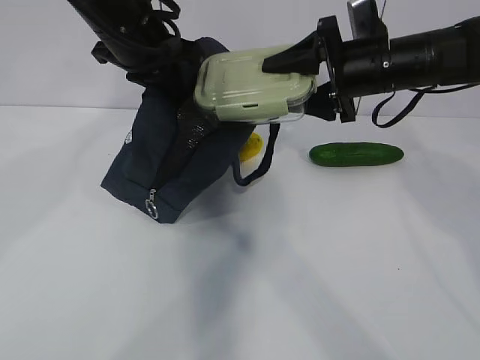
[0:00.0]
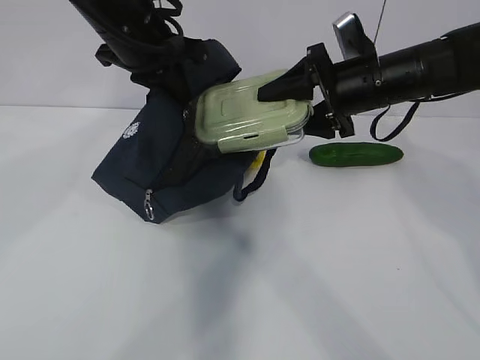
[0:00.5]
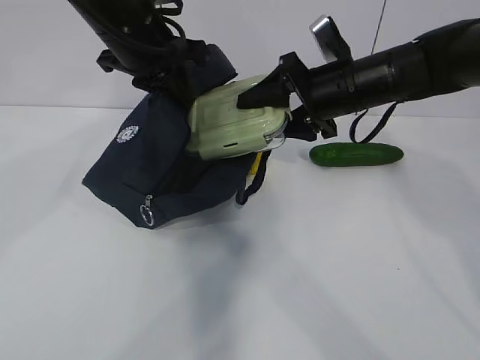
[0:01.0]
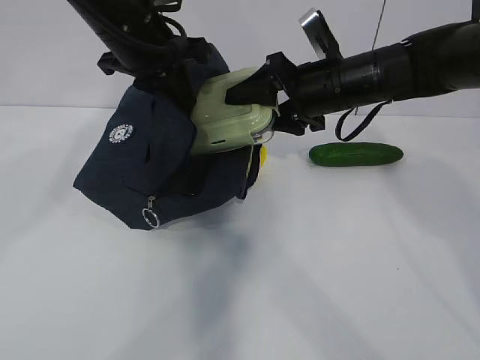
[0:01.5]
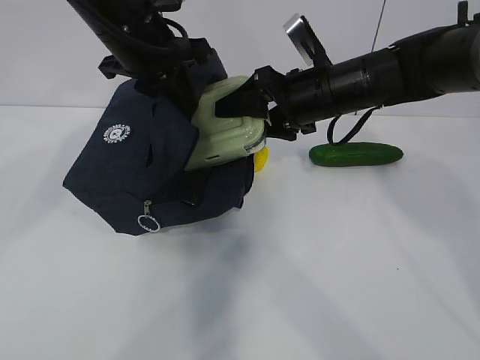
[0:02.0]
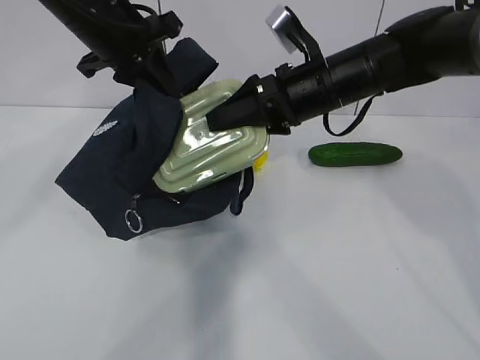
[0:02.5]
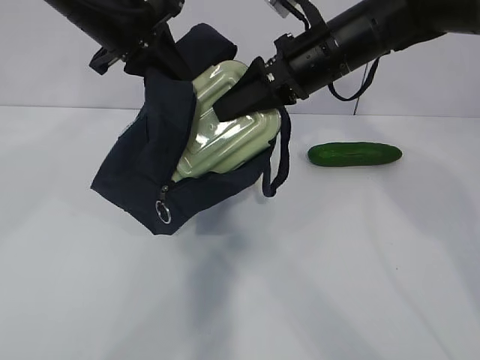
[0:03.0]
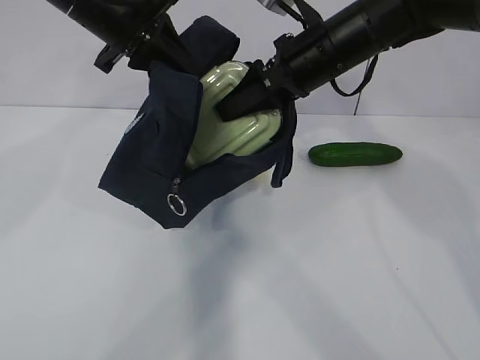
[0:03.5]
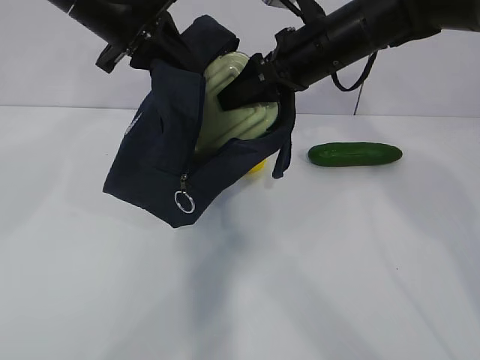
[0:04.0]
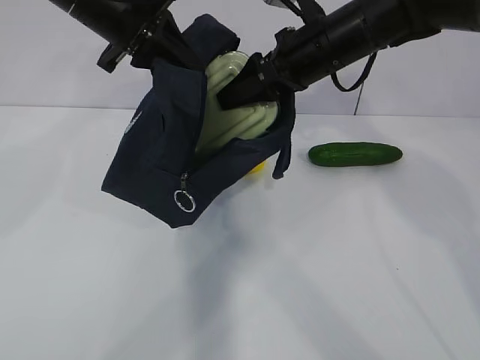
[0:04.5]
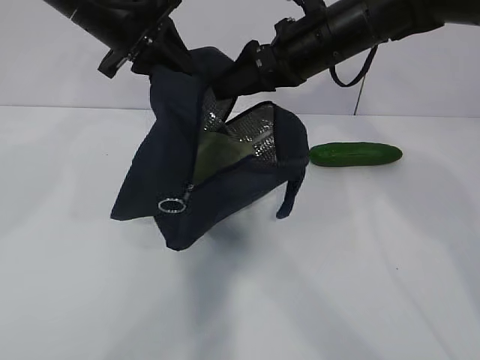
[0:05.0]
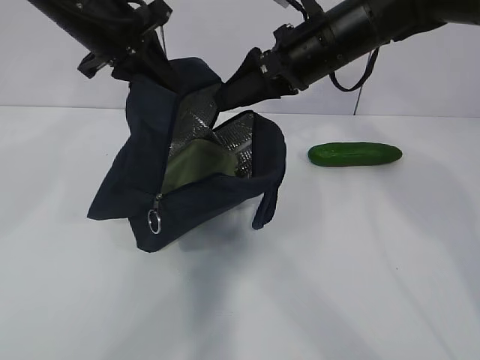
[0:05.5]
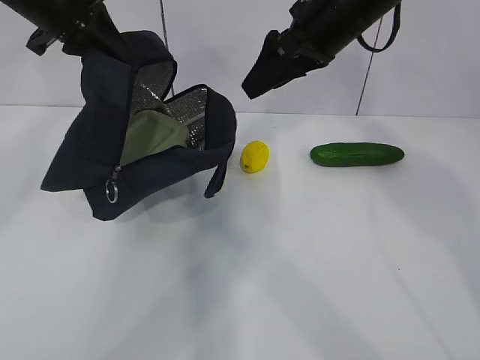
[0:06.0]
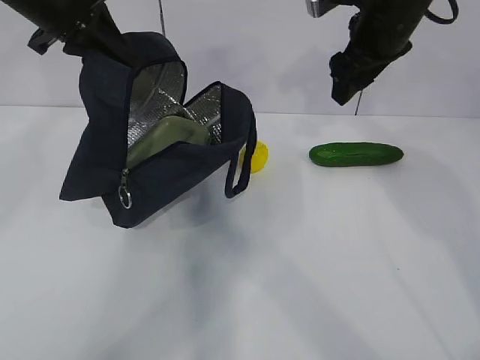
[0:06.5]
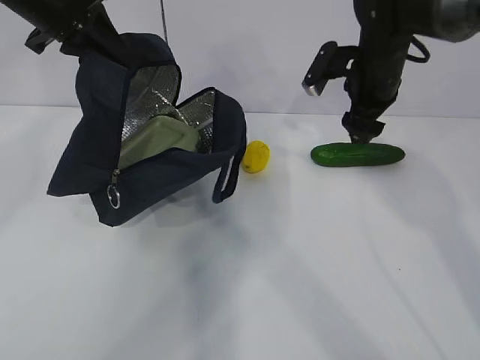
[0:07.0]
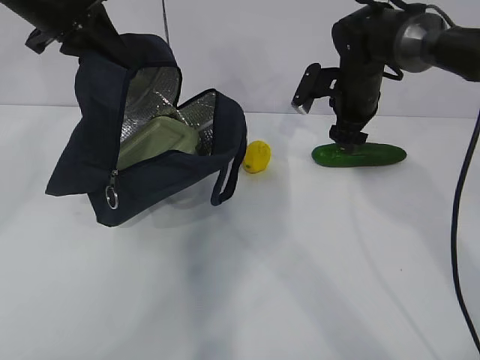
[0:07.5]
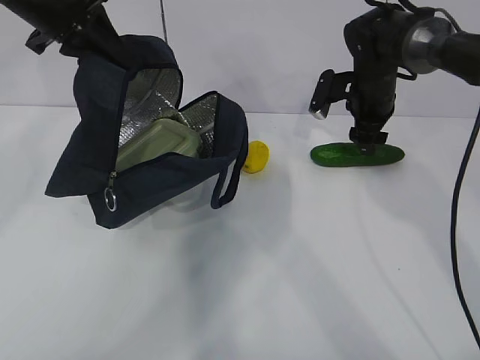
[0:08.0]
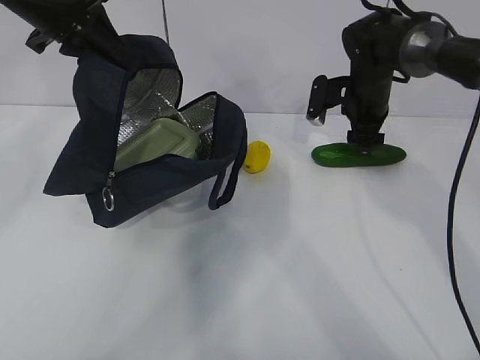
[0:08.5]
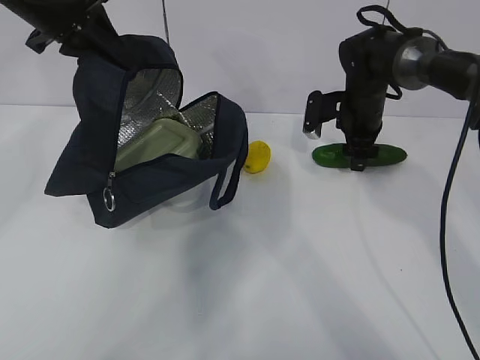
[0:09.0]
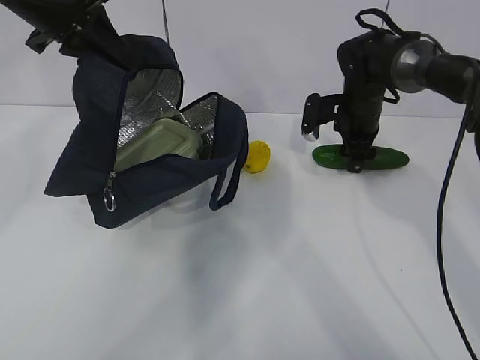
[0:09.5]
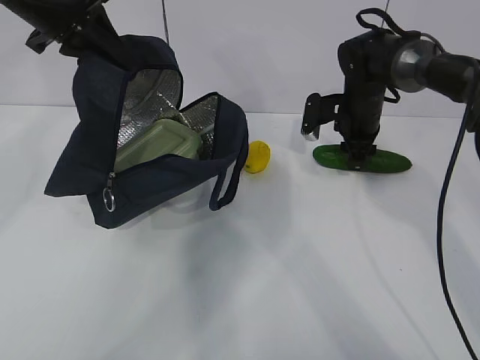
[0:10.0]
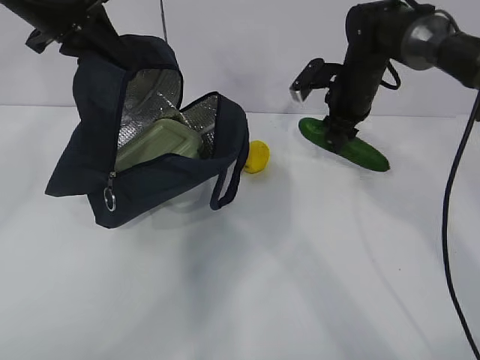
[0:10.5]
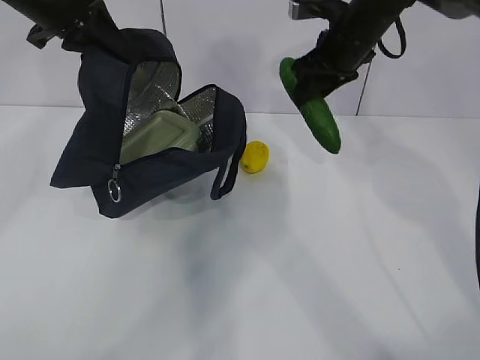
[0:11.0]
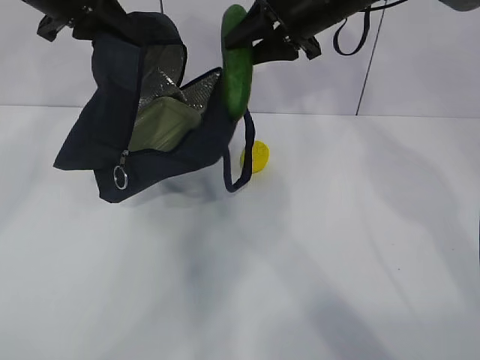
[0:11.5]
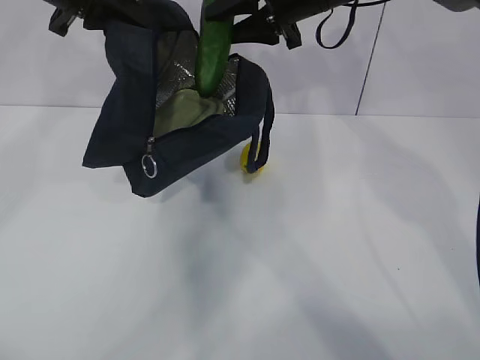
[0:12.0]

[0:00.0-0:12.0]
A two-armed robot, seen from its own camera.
Step, 0:00.0 to 0:03.0: Grab the cucumber with your right hand.
Step, 0:03.5 to 0:07.0: Place it into the bag with your right hand.
Step, 0:07.5 to 0:11.5: Grab the lemon with your right hand.
0:00.0 to 0:02.0: The right gripper travels to the left by roughly 5 cm.
0:04.0 to 0:06.0: The left gripper goes roughly 5 cm to the left.
0:06.0 to 0:08.0: The right gripper travels downward, forward and to the right by some 20 cm.
0:08.0 to 0:10.0: The grippers stay close to where they were, moving slightly.
0:10.0 to 0:12.0: The right gripper is displaced upward and to the left by roughly 20 cm.

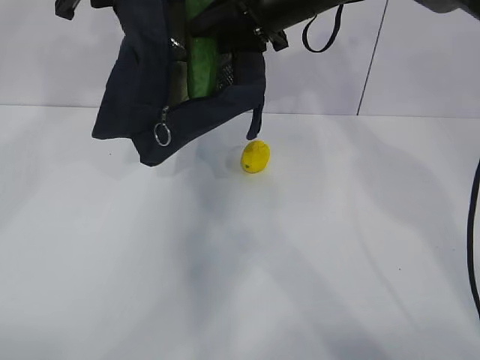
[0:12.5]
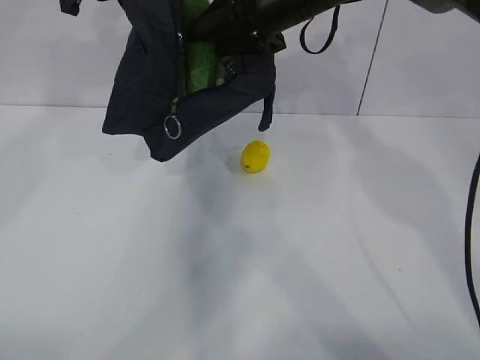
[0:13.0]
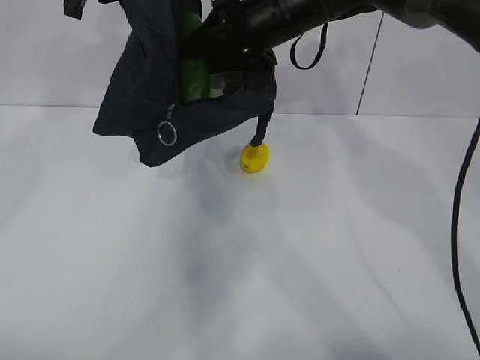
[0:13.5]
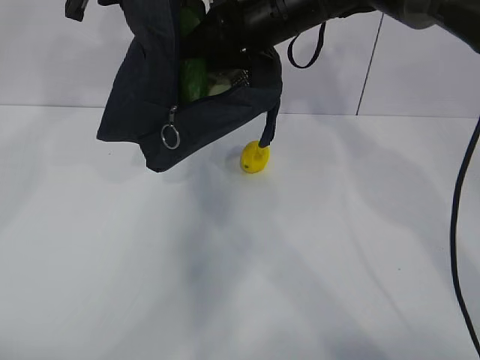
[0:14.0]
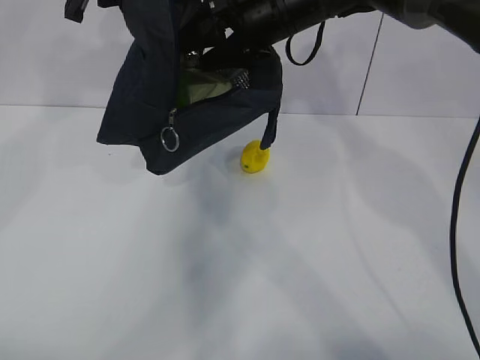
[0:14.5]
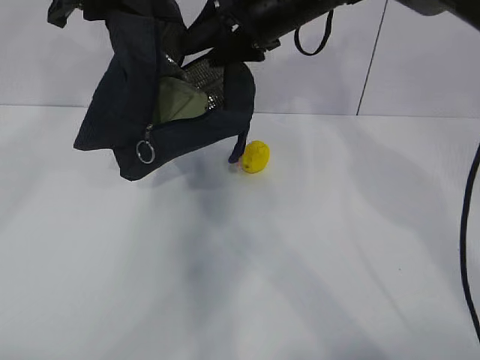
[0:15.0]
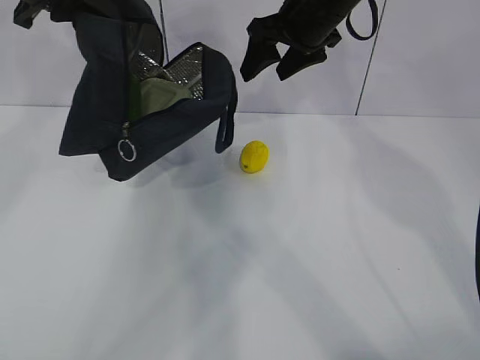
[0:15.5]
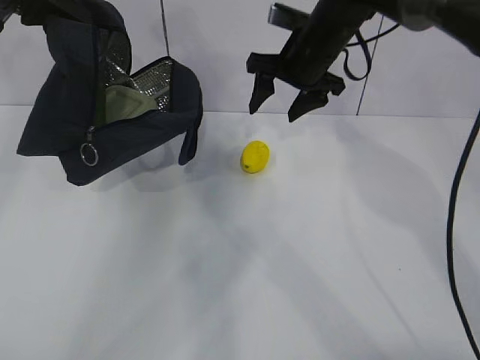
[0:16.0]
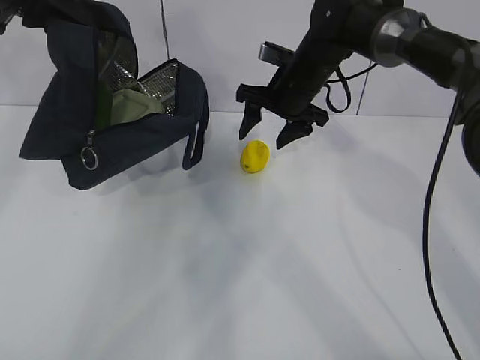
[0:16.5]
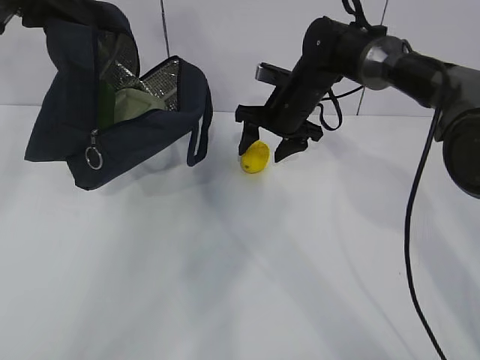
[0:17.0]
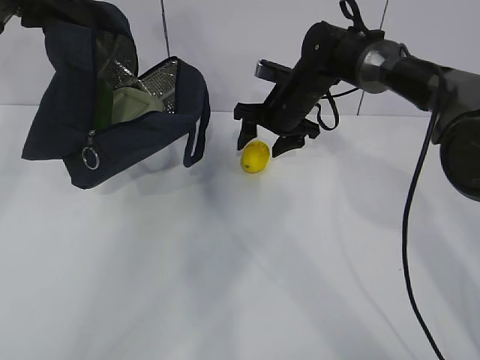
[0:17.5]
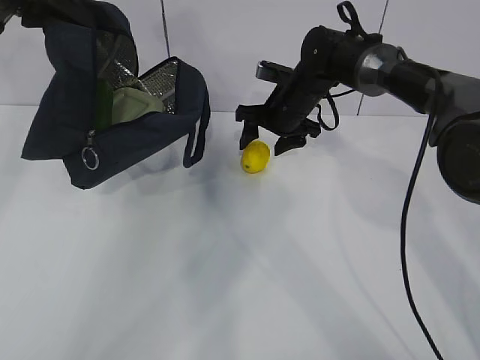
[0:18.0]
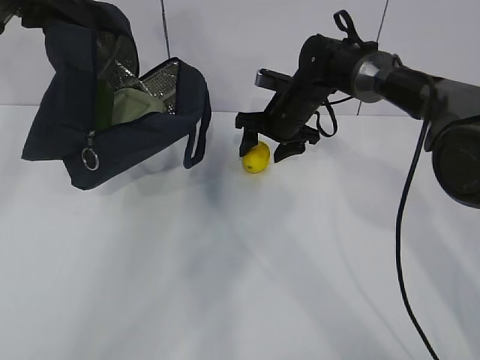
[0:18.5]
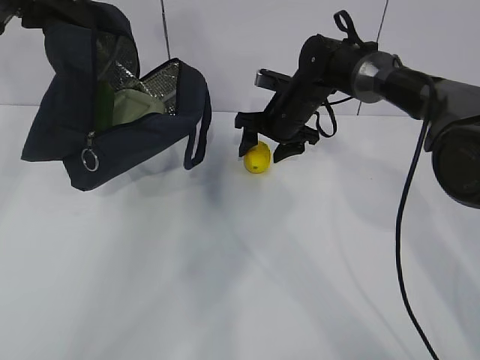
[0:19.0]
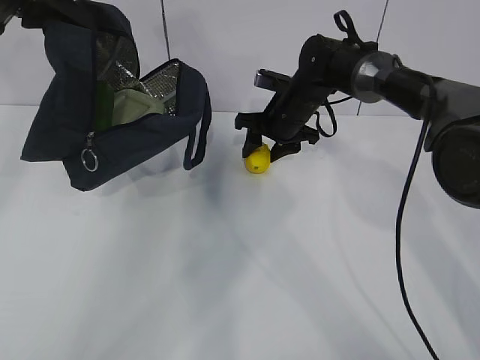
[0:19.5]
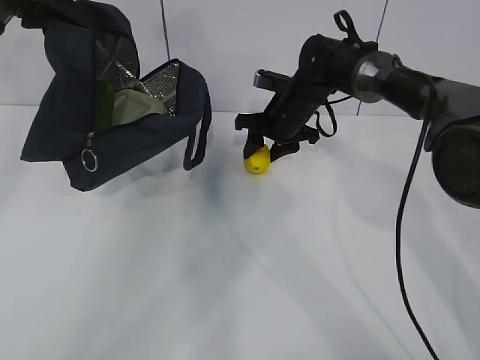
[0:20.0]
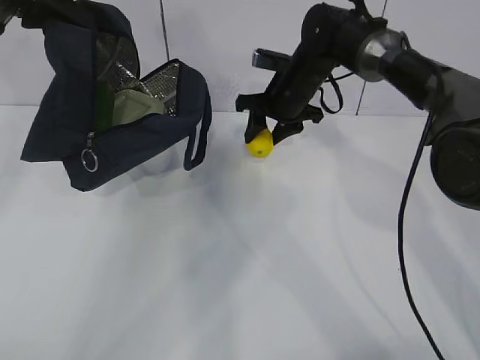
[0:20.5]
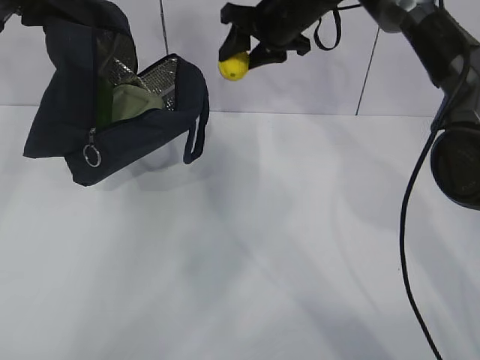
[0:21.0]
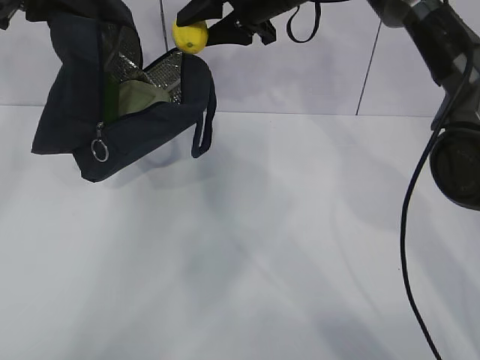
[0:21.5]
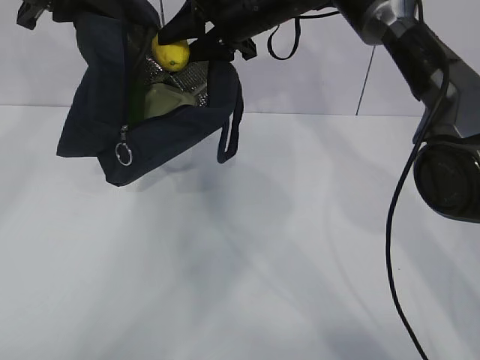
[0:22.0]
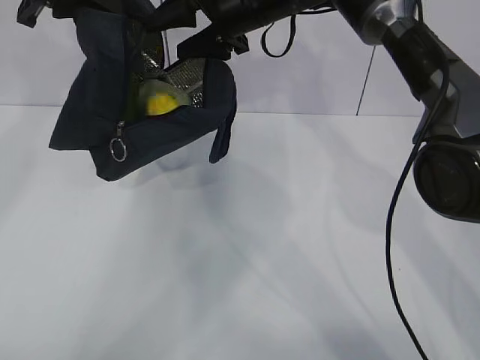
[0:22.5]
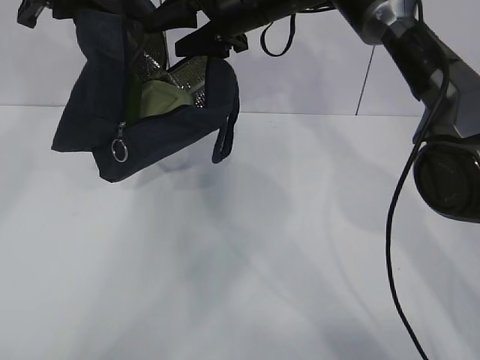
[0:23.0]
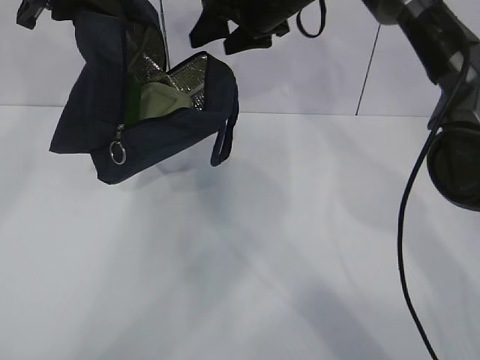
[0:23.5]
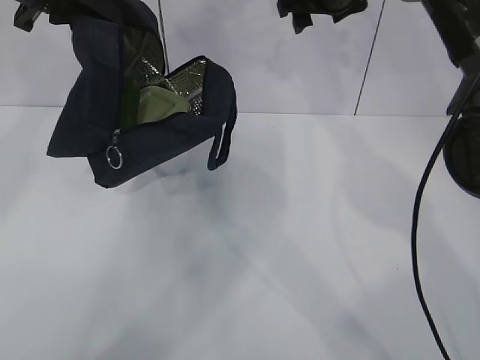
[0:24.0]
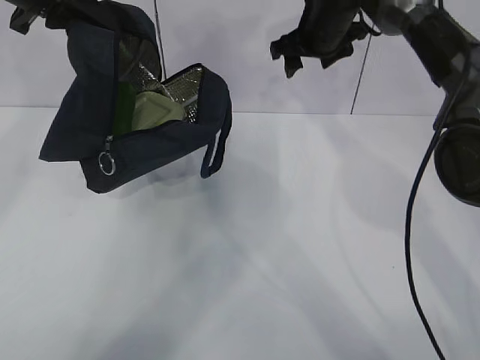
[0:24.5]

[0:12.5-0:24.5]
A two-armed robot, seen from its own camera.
Step, 0:14.5 to 0:21.0: Move the lunch bag to the left.
0:12.5 to 0:14.5: The right gripper opens its fingers.
0:14.5 to 0:16.5: The left gripper moves to the left, about 10 cm. The right gripper heads downward, covering some 10 cm.
0:16.5 to 0:18.5: The right gripper travels downward by approximately 5 cm.
0:18.5 to 0:20.5: The grippers make only small movements.
0:20.5 to 0:22.5: The right gripper moves upward and to the left, about 15 cm.
0:22.5 to 0:24.5: The right gripper is displaced to the right by about 10 cm.

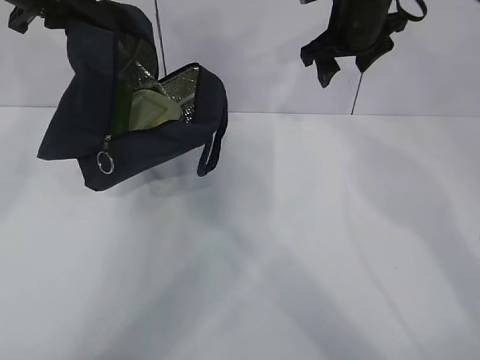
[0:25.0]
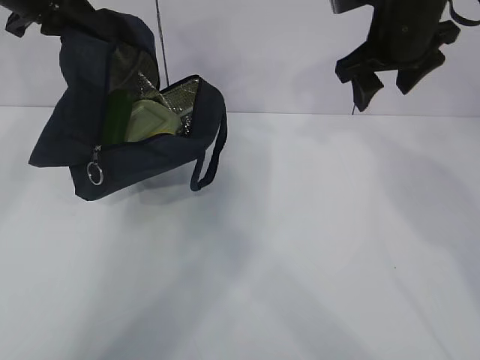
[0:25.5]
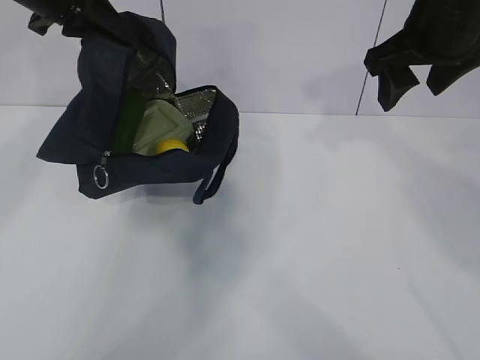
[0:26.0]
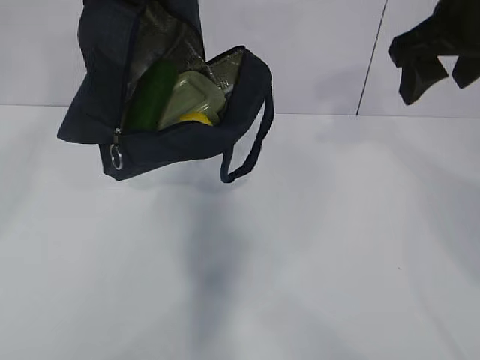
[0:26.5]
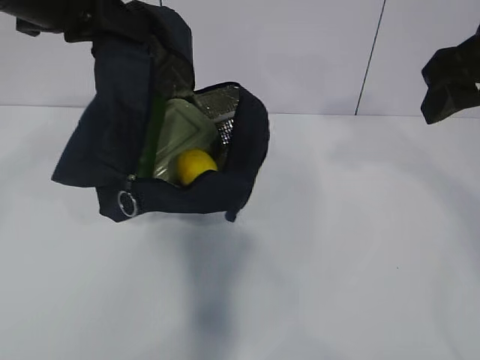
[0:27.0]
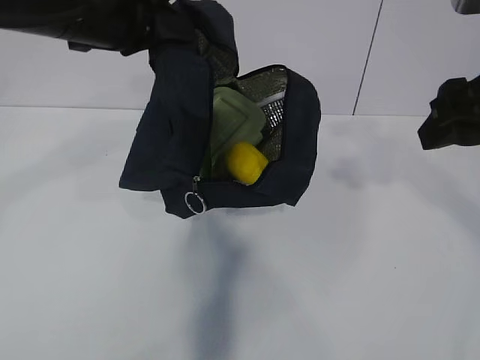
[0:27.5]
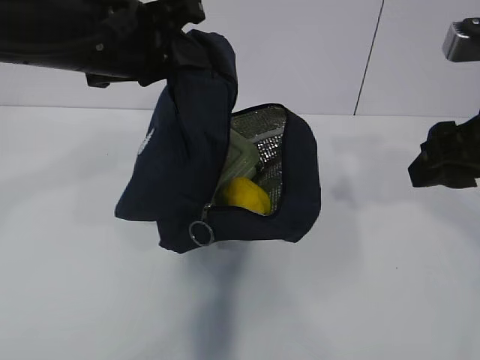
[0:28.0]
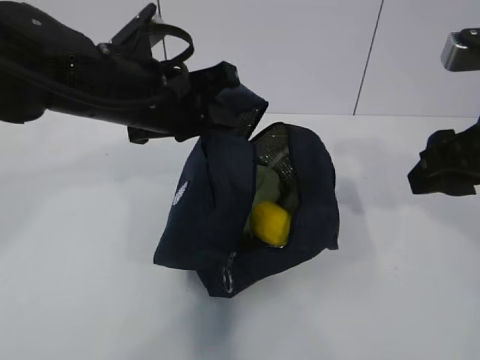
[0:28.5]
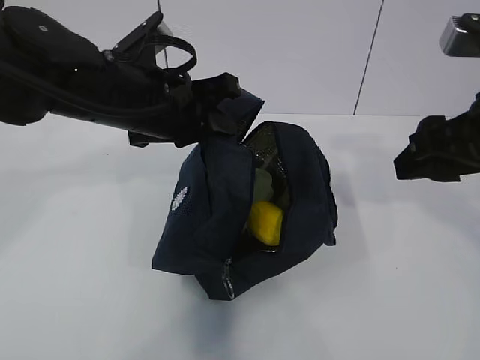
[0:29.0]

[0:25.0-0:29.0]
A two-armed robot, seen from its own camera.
0:25.0 to 0:27.0: The left gripper travels backward and to the right by approximately 15 cm. Meanwhile the right gripper is displaced backward by about 20 cm.
0:27.0 to 0:29.0: The right gripper goes approximately 5 cm downward. The left gripper goes approximately 15 cm downward and to the right.
